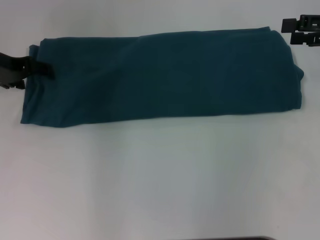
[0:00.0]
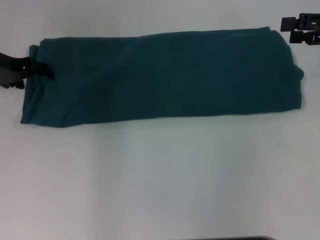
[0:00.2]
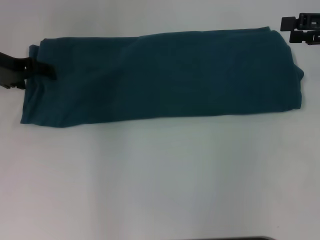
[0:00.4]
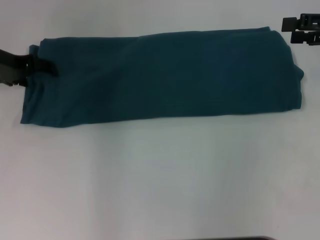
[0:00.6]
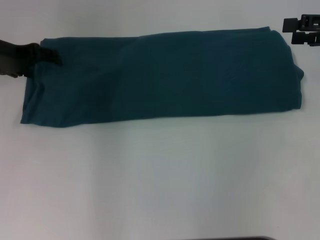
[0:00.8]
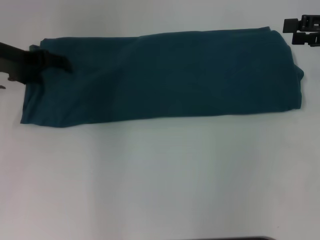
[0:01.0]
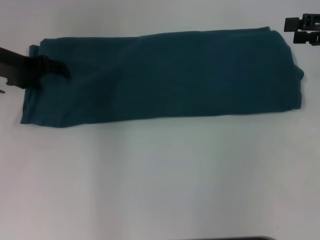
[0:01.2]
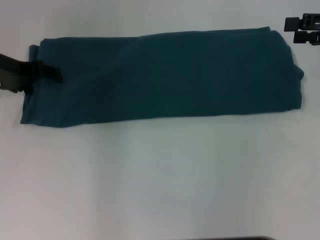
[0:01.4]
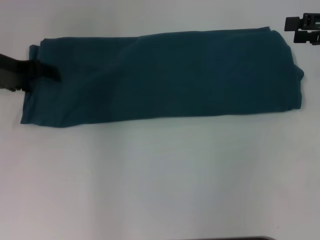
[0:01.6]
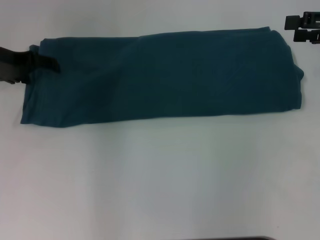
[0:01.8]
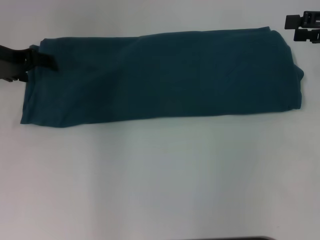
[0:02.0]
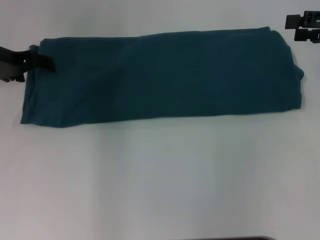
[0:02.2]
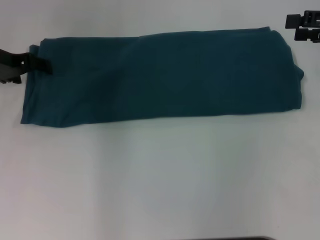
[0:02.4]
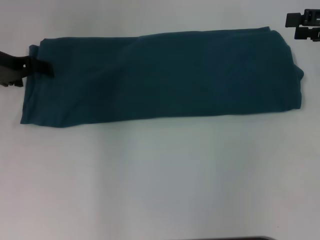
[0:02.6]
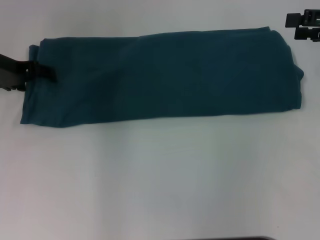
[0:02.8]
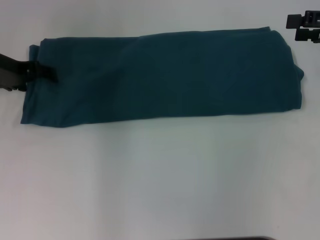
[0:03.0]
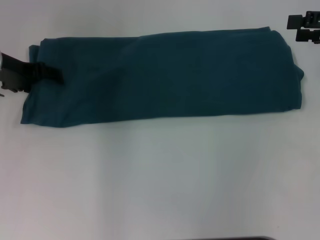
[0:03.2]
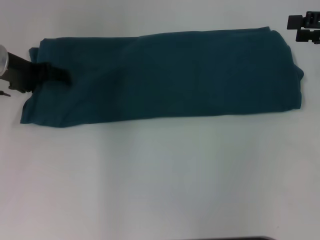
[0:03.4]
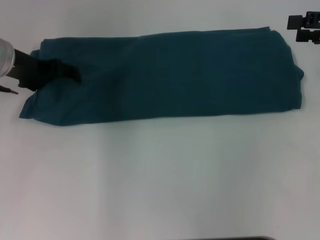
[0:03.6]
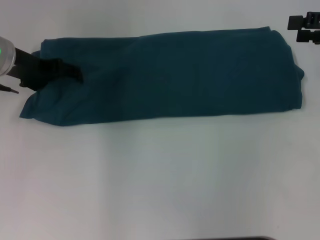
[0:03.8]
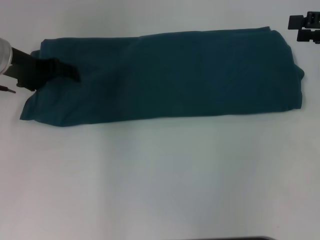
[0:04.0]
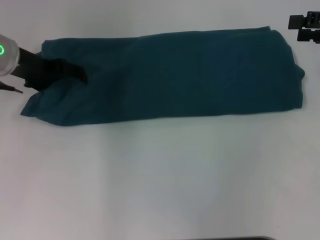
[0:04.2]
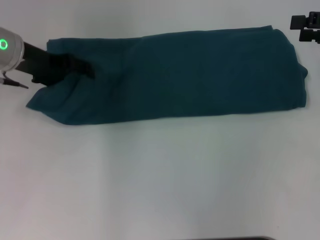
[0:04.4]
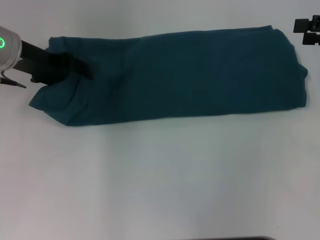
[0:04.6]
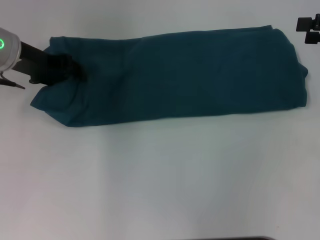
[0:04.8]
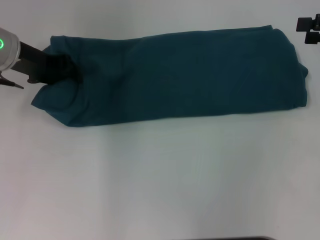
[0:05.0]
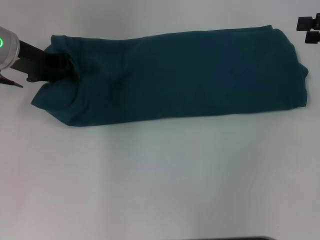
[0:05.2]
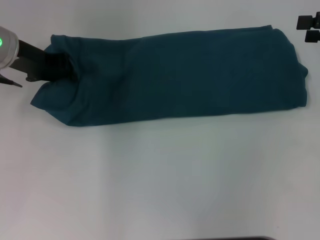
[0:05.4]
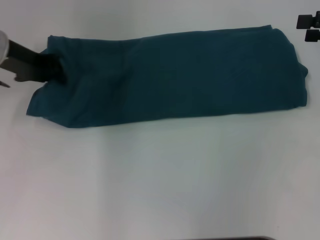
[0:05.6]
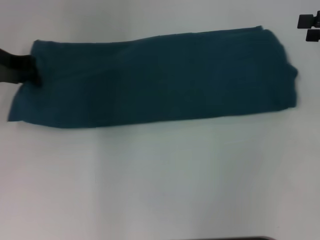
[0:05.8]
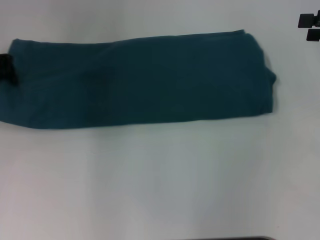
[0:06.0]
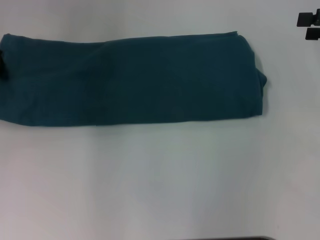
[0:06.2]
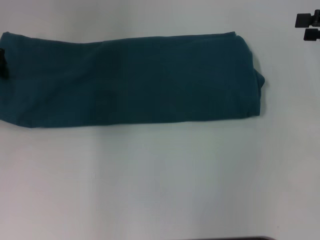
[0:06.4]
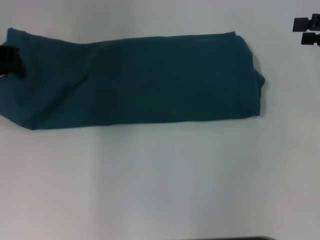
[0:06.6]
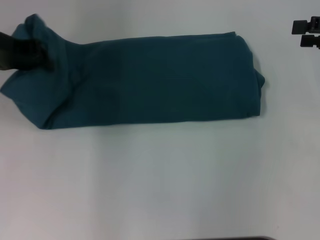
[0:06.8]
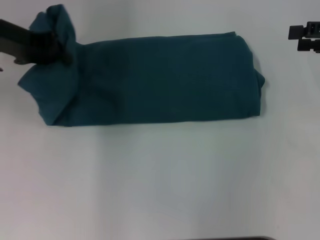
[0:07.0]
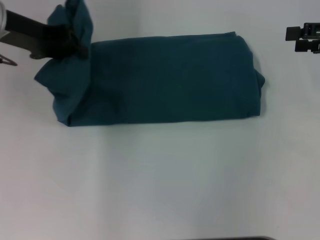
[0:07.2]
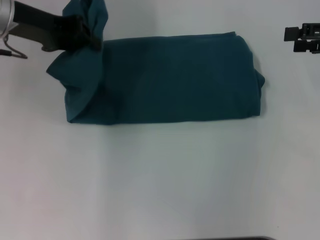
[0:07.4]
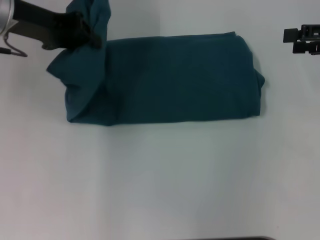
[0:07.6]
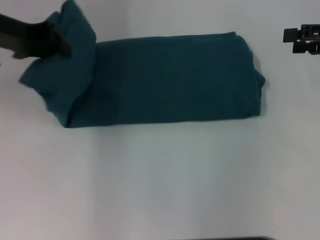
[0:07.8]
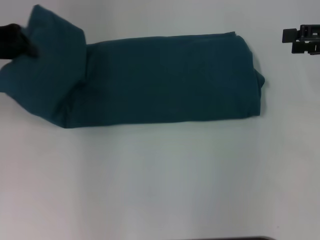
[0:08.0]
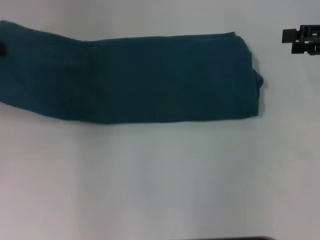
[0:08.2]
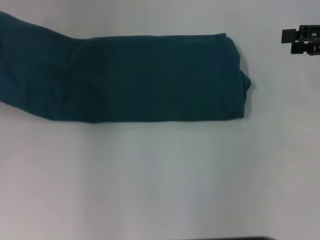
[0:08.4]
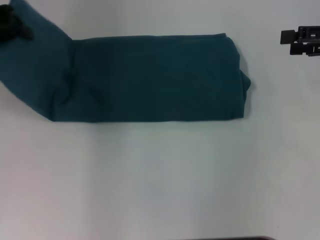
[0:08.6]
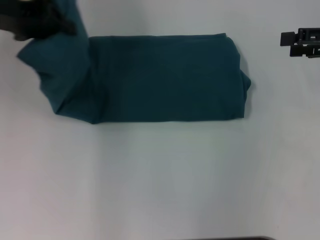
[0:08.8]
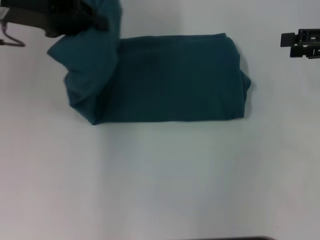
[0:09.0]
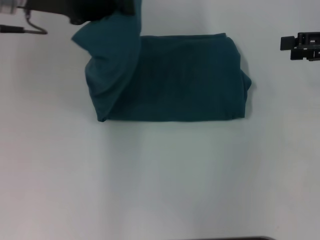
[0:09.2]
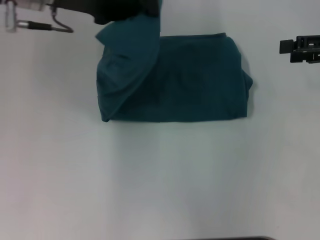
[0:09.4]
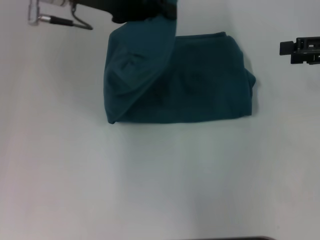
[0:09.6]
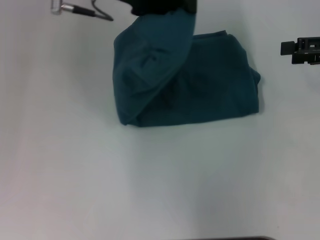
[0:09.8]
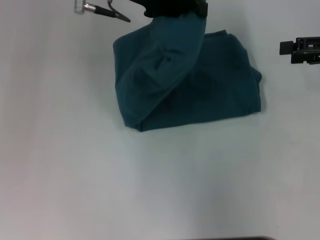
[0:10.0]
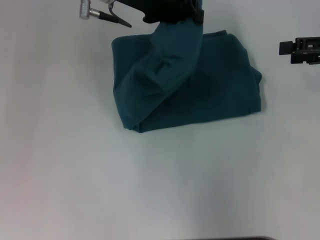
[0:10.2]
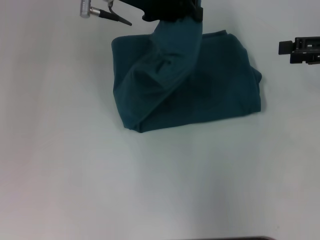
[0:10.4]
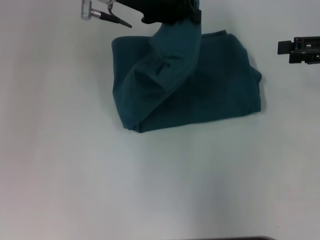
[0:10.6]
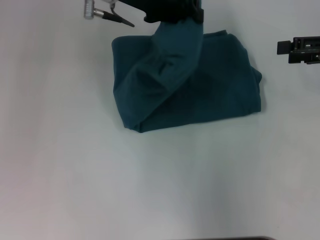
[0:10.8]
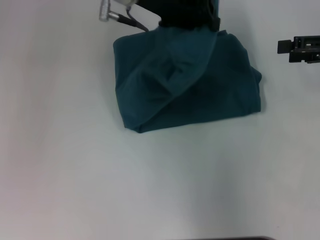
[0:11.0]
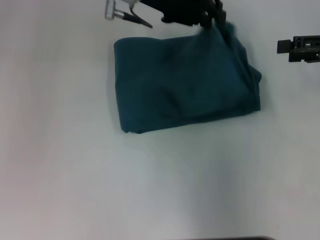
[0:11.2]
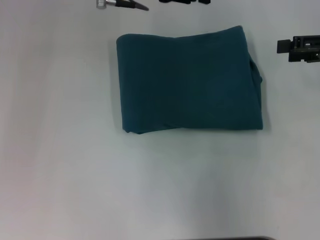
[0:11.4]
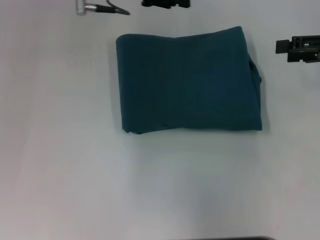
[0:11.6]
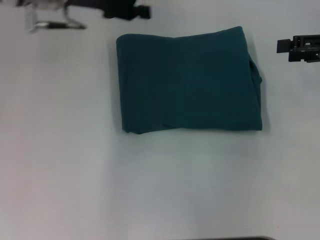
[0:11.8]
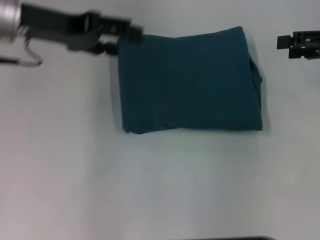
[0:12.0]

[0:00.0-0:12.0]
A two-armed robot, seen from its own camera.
Step, 0:00.0 to 0:11.2: Fold the clothes to the left.
0:00.0 to 0:01.6: The grippers move only a little.
0:03.0 to 0:04.4: The grippers stay close to where they were, moving slightly.
0:04.4 to 0:06.0: The left gripper goes approximately 5 cm to the left, and closes its fingers.
0:06.0 to 0:07.6: The left gripper shifts approximately 10 cm to the right.
0:07.6 to 0:09.0: The left gripper travels to the left and back again, approximately 10 cm each way.
0:09.0 to 0:10.4: The left gripper travels to the right by about 15 cm.
0:10.4 to 0:12.0: The left gripper heads to the left, covering about 10 cm, and opens.

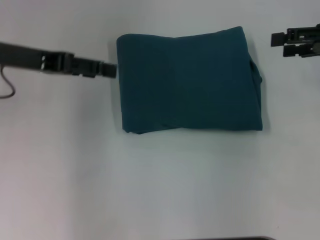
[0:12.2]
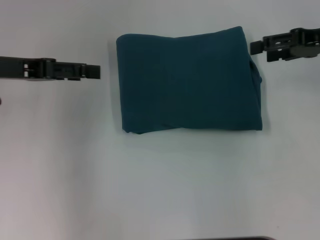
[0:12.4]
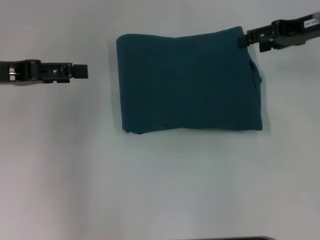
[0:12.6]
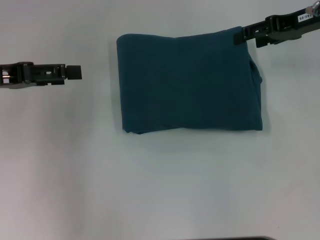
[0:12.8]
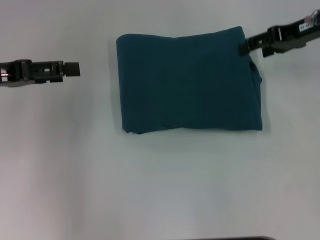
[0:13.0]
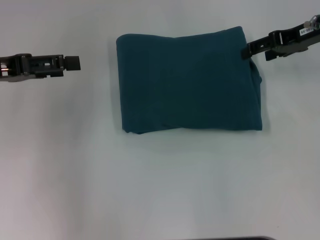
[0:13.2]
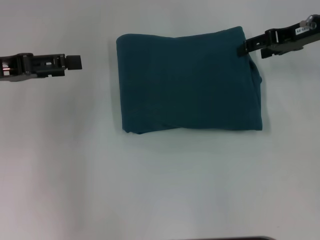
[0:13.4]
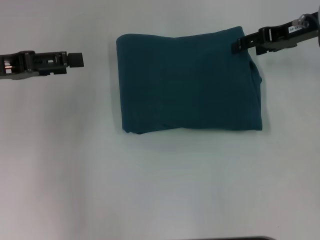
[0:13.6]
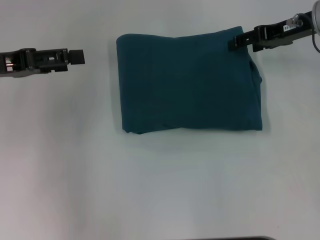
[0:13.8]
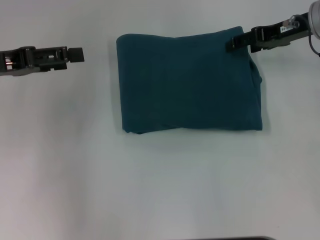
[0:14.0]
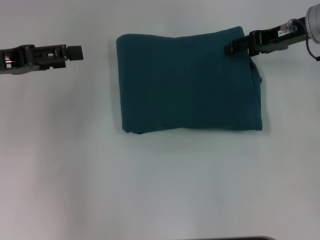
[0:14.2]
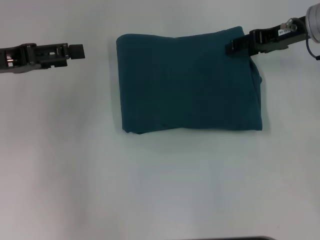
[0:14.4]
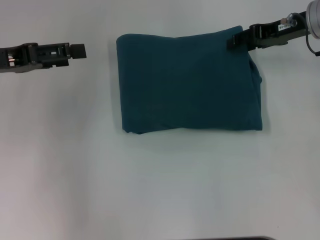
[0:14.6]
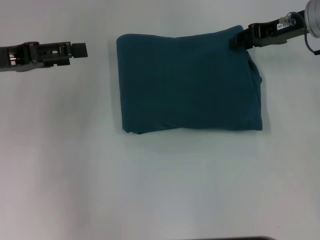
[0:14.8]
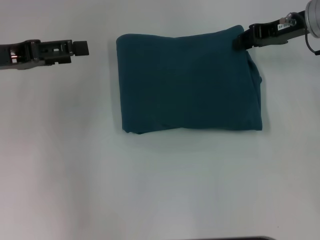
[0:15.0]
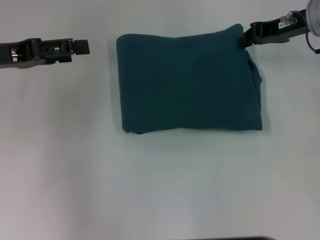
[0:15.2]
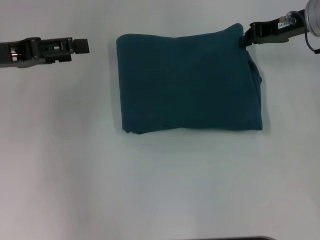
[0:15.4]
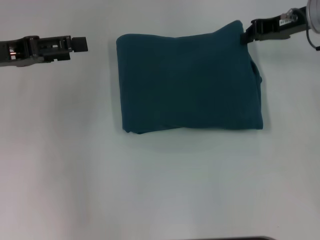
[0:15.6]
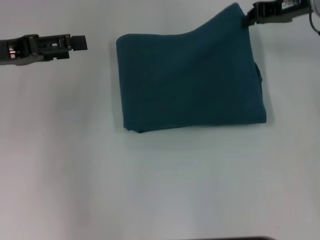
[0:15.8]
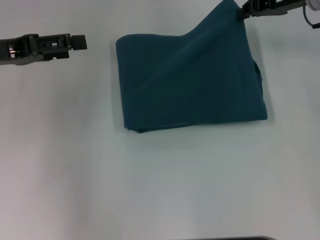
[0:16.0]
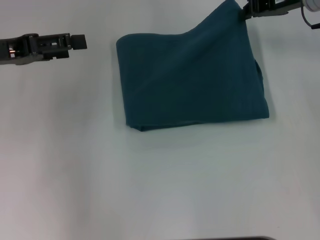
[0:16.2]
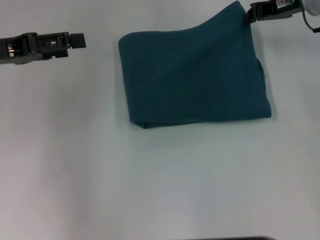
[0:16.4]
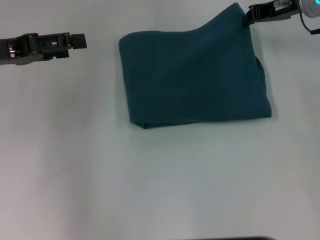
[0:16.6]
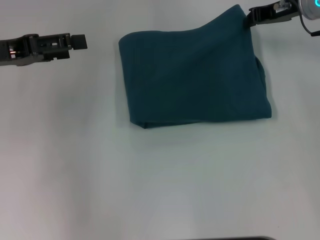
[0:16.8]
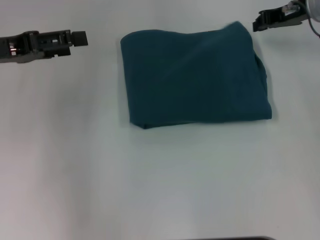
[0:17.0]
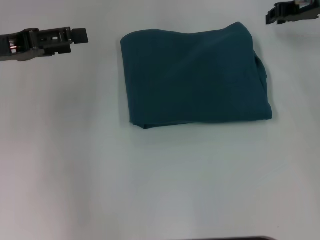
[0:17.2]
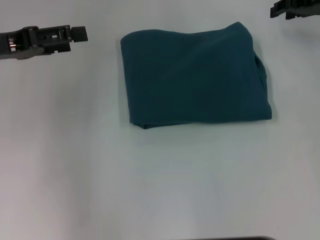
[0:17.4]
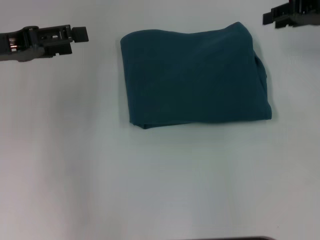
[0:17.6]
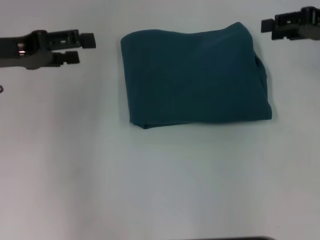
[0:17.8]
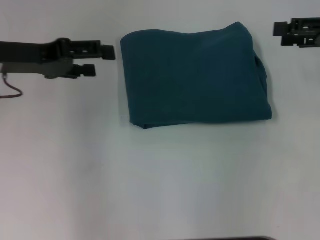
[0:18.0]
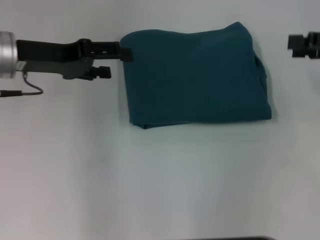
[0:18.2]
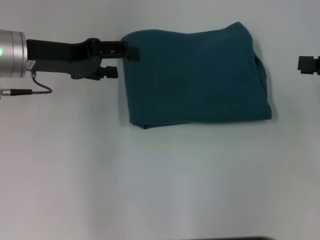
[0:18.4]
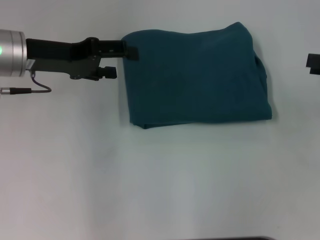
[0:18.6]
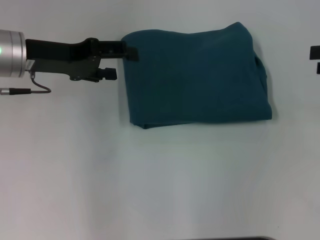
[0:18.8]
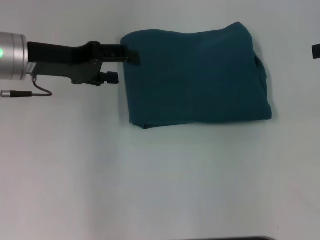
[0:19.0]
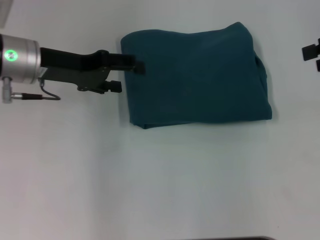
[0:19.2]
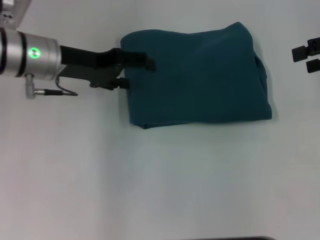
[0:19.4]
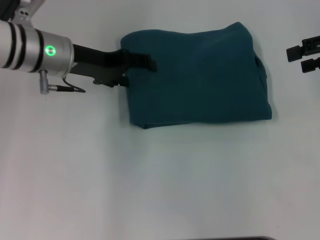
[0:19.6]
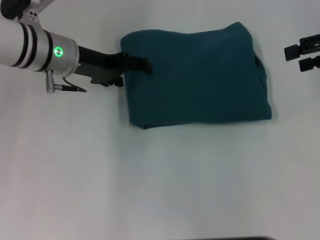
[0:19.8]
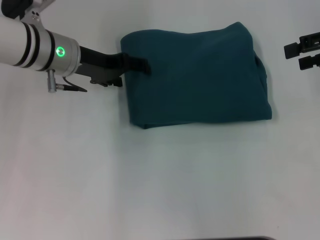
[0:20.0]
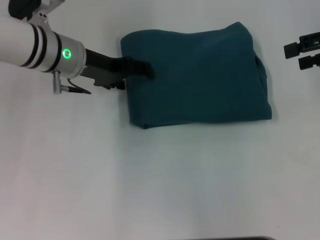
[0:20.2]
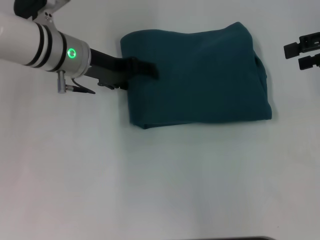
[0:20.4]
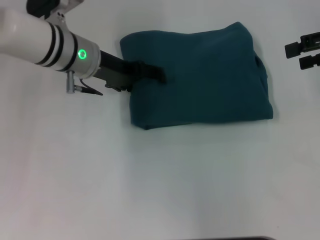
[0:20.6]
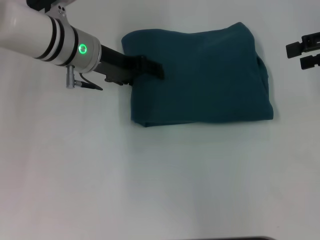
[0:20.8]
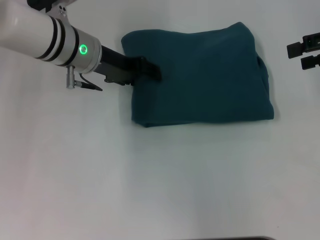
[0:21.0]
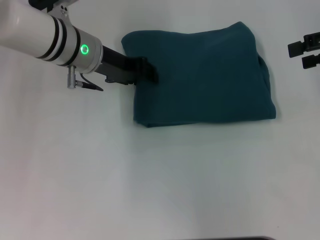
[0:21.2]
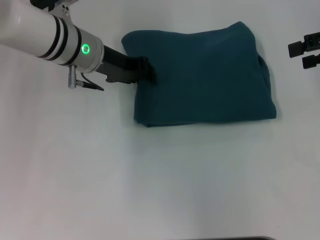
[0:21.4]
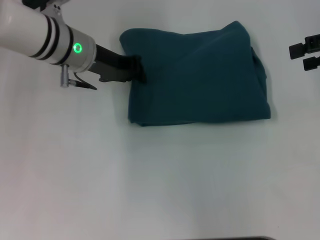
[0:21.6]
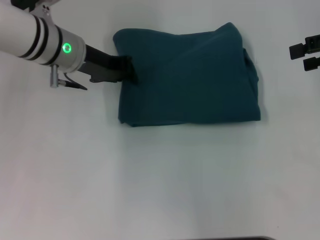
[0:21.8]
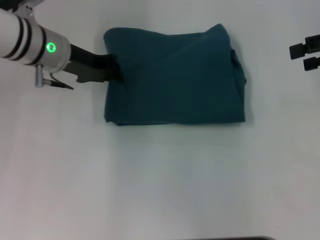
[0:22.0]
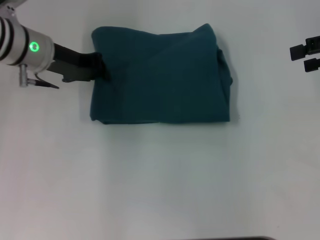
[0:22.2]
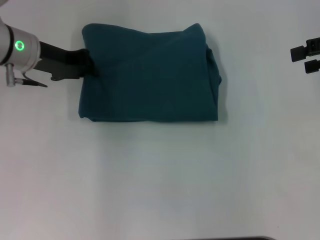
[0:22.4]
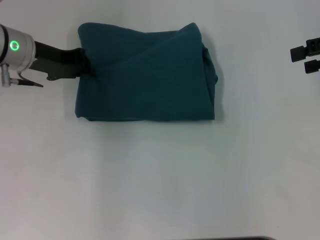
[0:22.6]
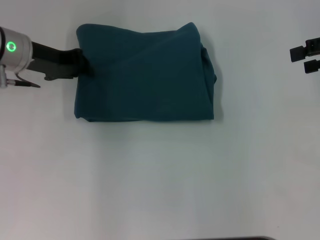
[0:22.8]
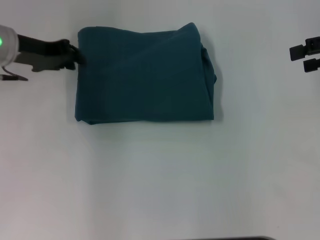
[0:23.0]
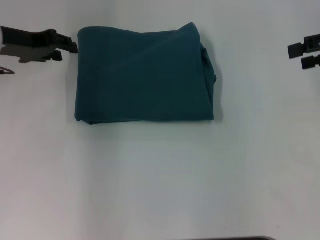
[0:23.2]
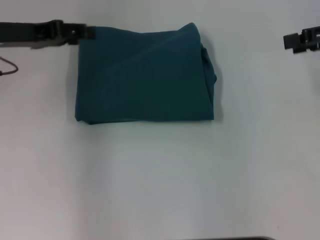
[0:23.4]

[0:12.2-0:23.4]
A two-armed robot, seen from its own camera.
0:12.2 to 0:13.8: The right gripper goes about 10 cm to the left and forward; the left gripper changes place by roughly 5 cm.
0:13.8 to 0:15.4: The right gripper closes up.
0:15.4 to 0:17.0: The grippers make only small movements.
0:17.0 to 0:18.6: The left gripper heads to the right, covering roughly 5 cm, while the right gripper moves backward and to the right, about 20 cm, and opens its fingers.
0:18.6 to 0:20.2: The right gripper is displaced forward and upward by some 10 cm, while the left gripper is displaced to the right by about 5 cm.
0:20.2 to 0:21.8: The left gripper closes up.
0:21.8 to 0:23.4: The left gripper is displaced to the left by roughly 10 cm, and opens up.
